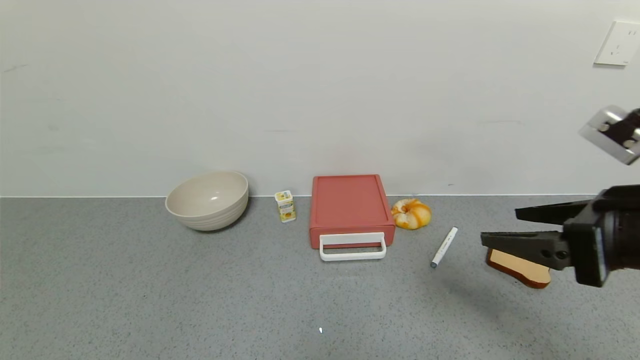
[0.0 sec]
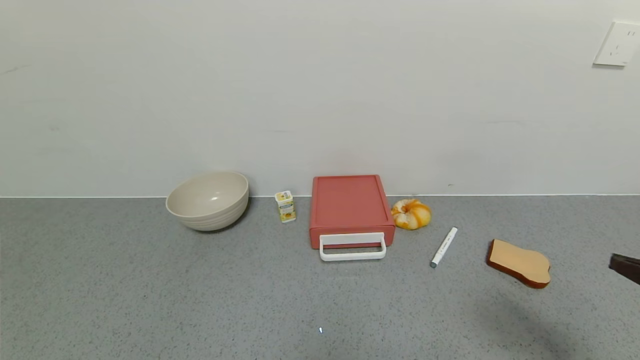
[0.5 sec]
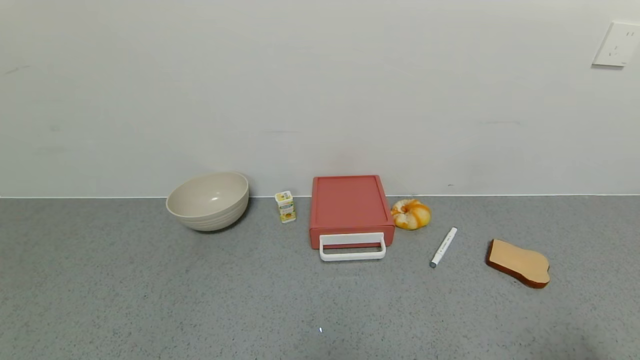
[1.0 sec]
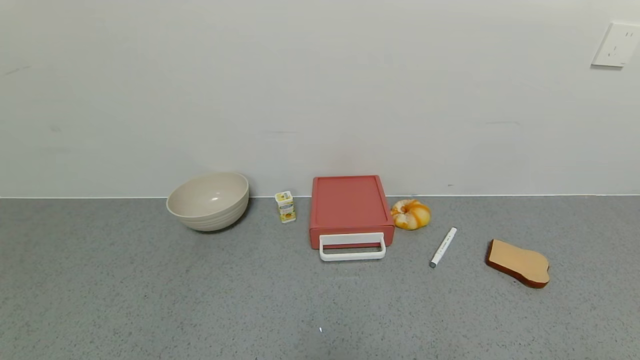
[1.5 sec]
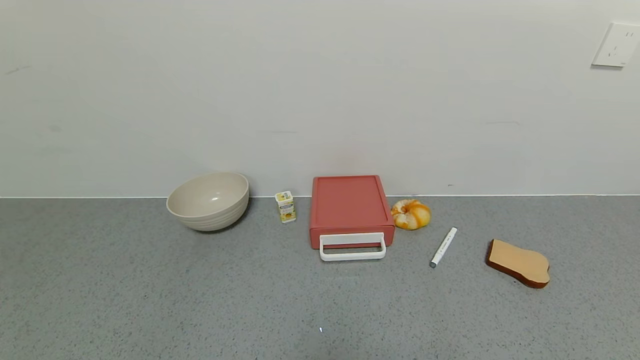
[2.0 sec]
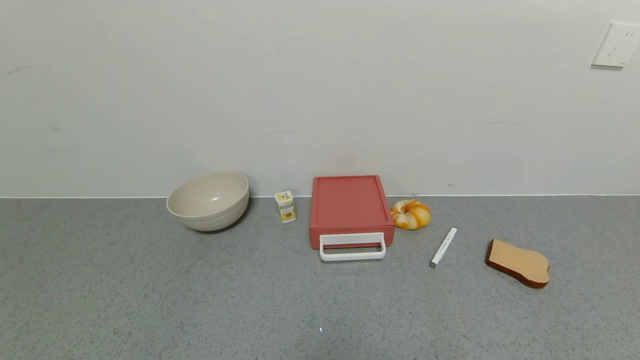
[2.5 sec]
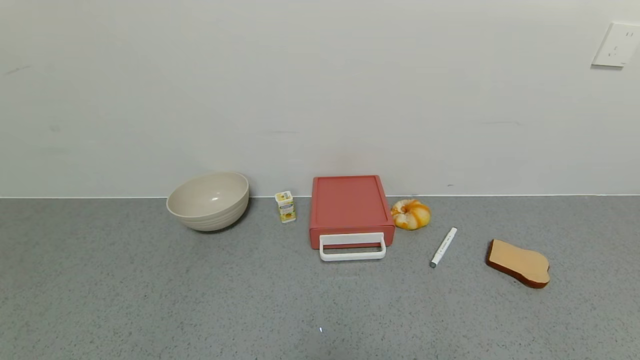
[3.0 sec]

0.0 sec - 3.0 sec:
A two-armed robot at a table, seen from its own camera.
Task of the whole recording: use the gripper to open the drawer and close the red drawer.
0.0 sec - 1.5 sec: The right gripper goes some 25 cm backward and to the right.
